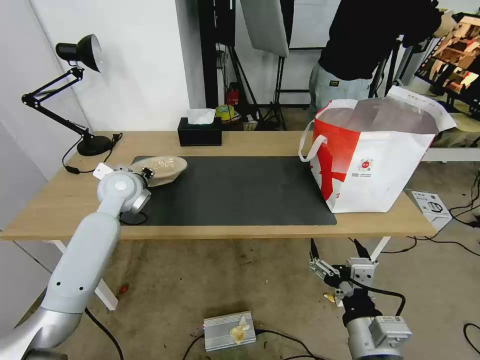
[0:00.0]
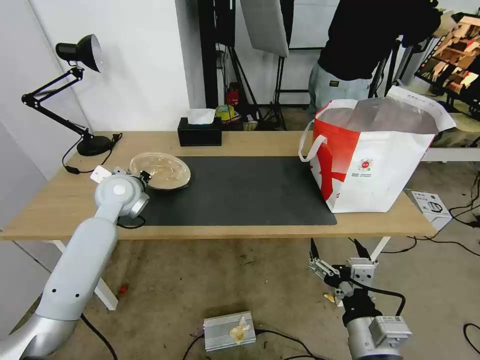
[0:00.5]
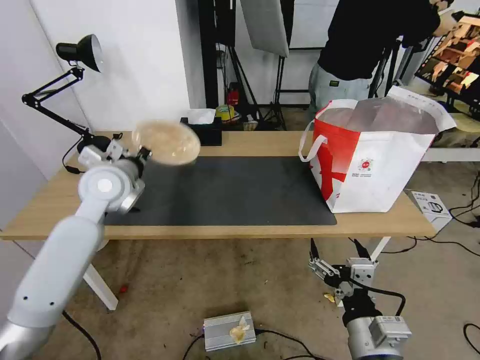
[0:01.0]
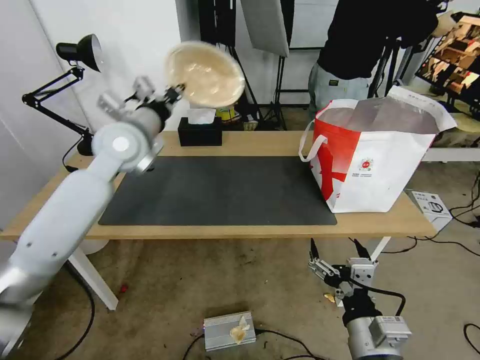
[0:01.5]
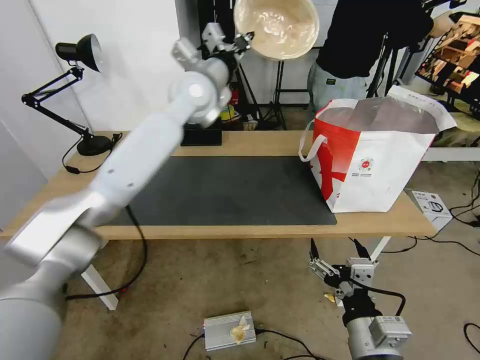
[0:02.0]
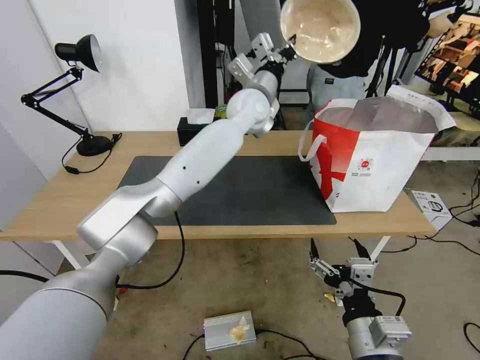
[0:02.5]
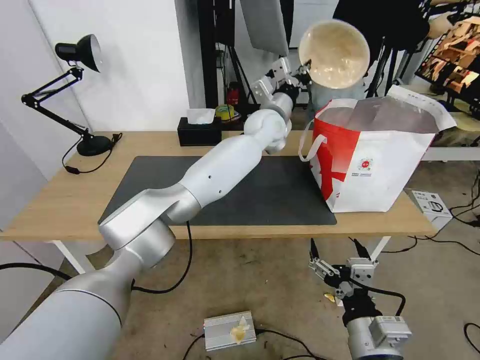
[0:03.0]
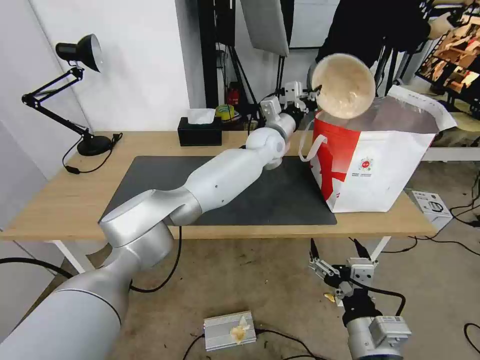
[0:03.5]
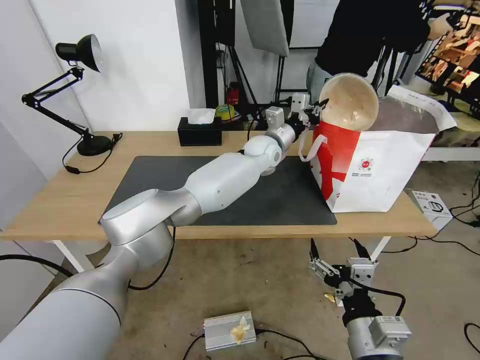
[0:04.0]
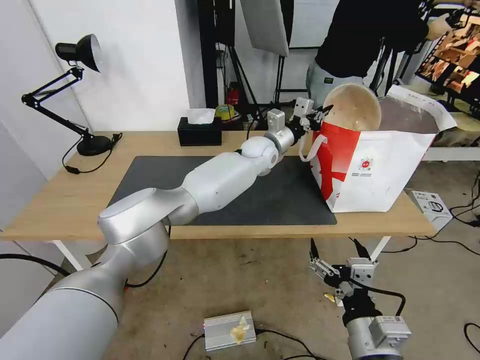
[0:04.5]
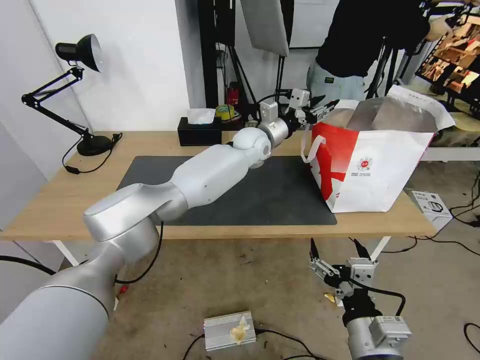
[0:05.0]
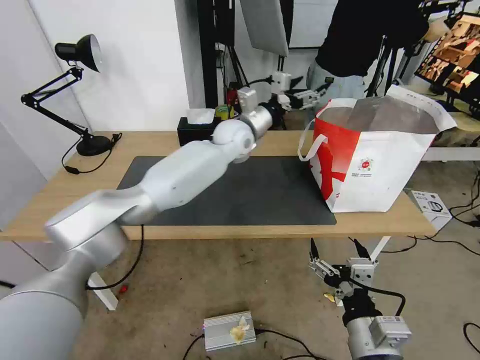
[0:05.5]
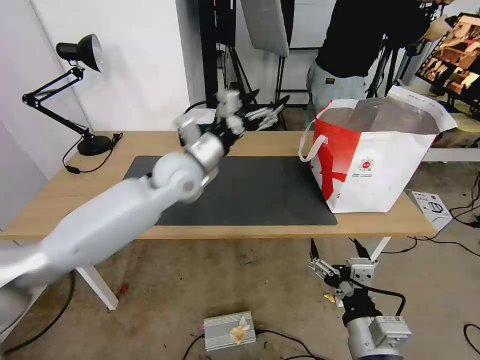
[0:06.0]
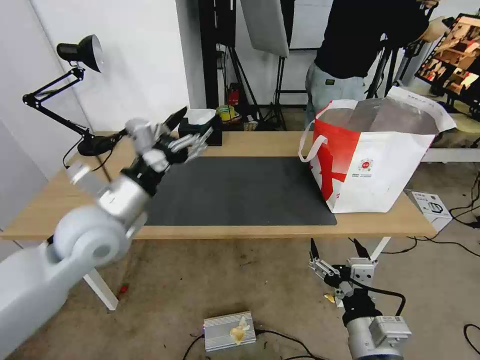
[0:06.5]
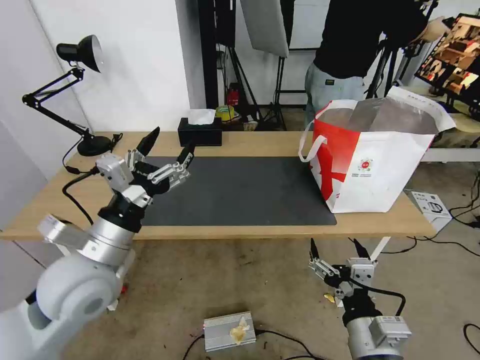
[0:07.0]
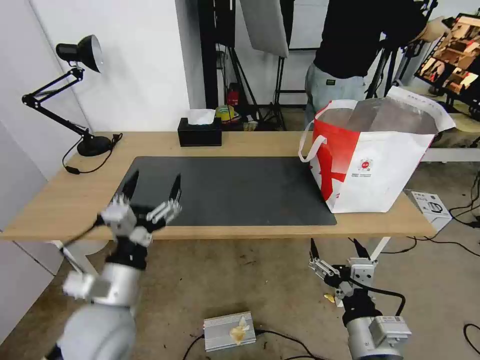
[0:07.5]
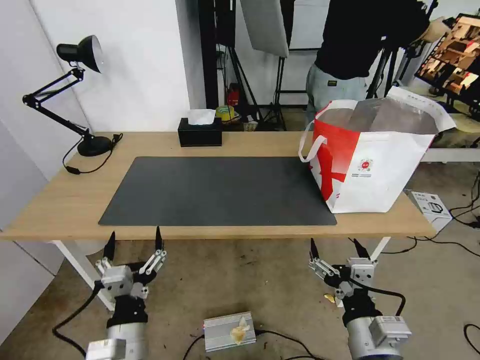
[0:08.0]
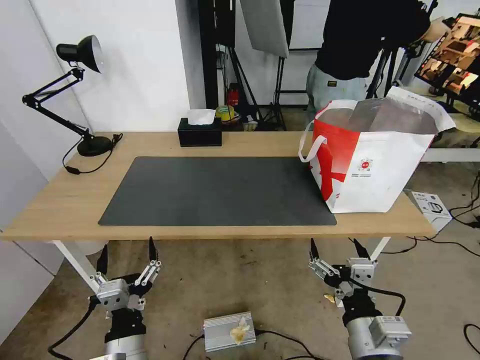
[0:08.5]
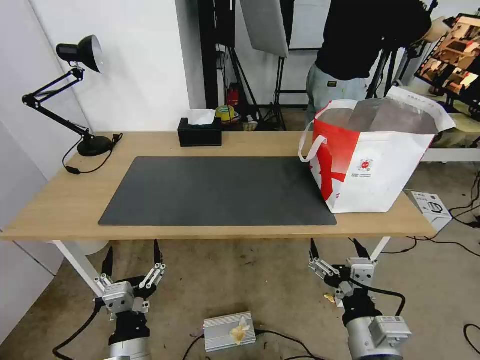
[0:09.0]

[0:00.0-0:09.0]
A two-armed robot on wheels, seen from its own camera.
Task of the whole recording: Pick up the trash from the table and place it into the takeout bag.
0:00.0 to 0:02.0: The left gripper is displaced to the right, upward and forward by about 25 cm, and closes up.
0:02.0 to 0:04.5: The left gripper goes roughly 20 cm downward and to the right.
0:04.5 to 0:07.0: The left gripper is displaced backward and to the left by about 50 cm, and opens up.
0:07.0 to 0:09.0: The left gripper goes roughly 20 cm downward and backward.
